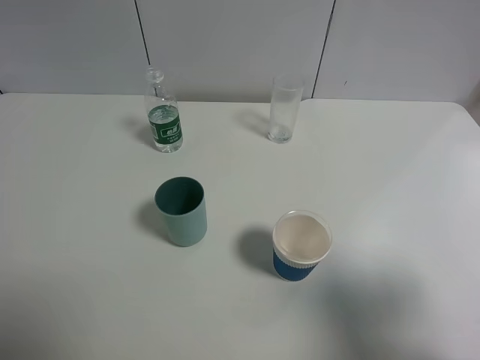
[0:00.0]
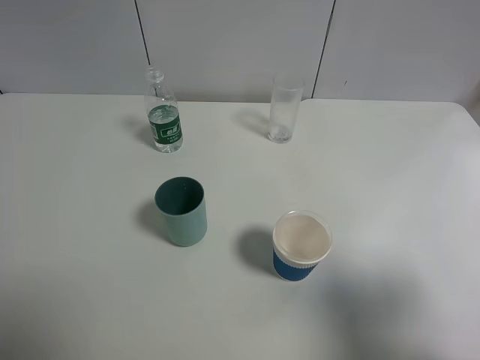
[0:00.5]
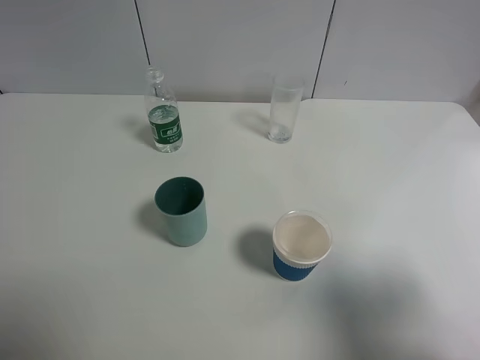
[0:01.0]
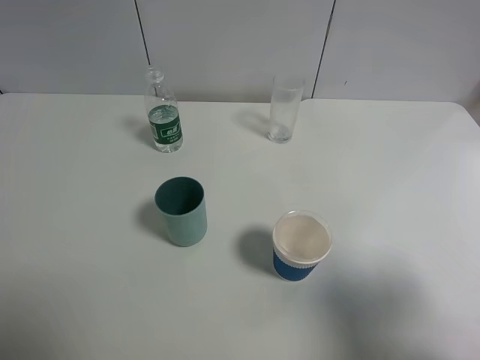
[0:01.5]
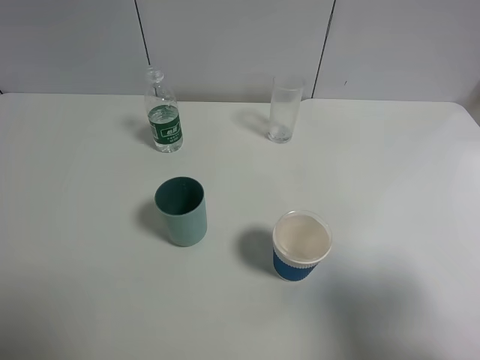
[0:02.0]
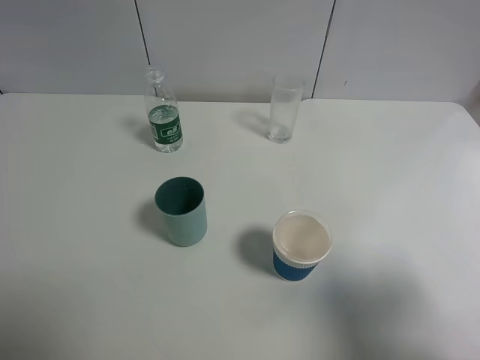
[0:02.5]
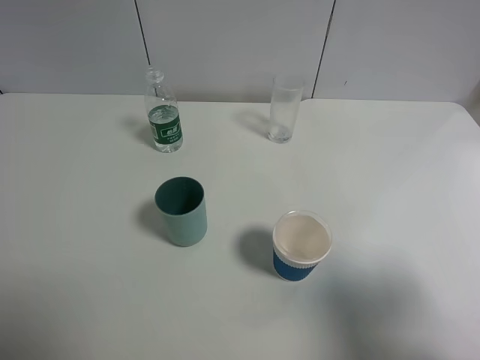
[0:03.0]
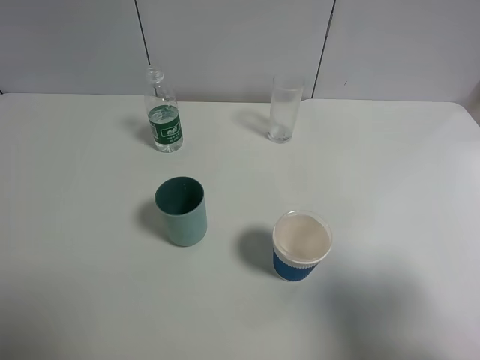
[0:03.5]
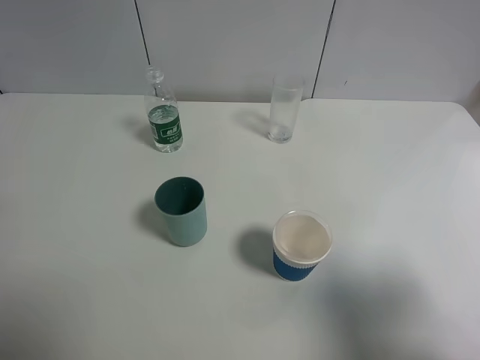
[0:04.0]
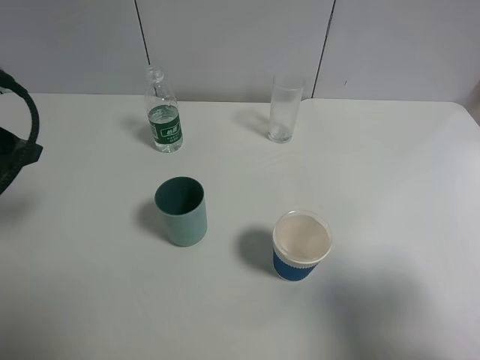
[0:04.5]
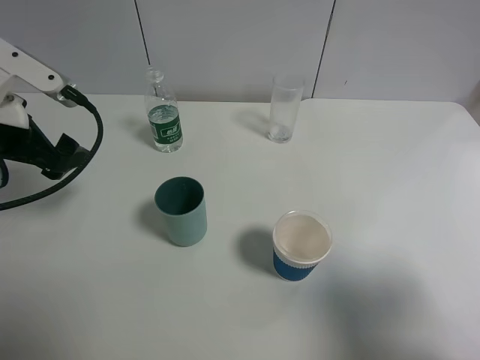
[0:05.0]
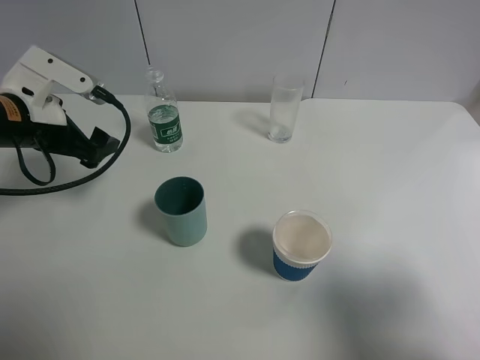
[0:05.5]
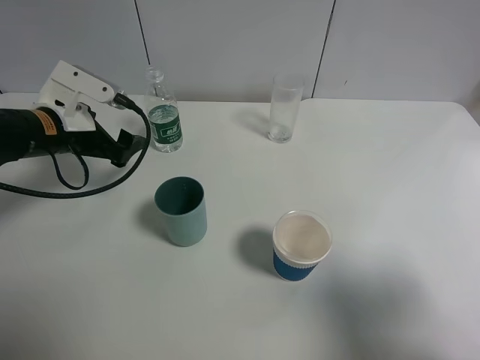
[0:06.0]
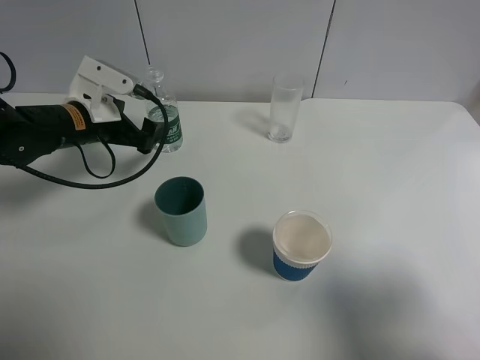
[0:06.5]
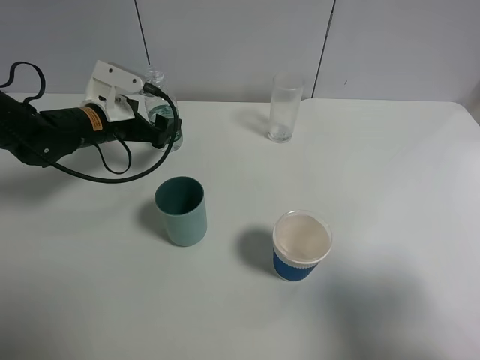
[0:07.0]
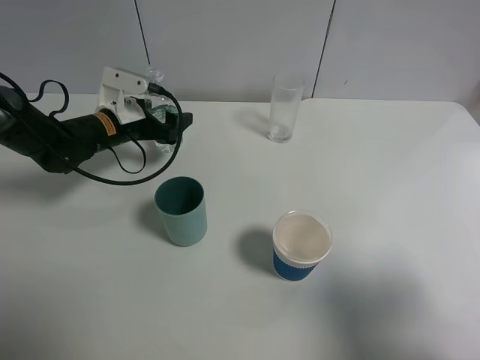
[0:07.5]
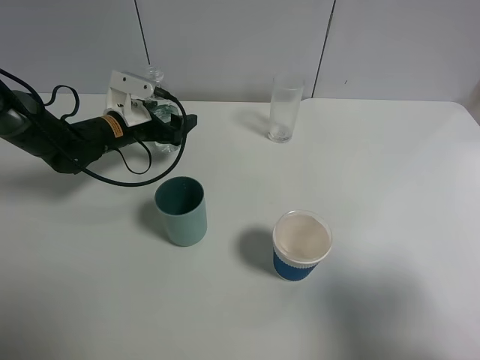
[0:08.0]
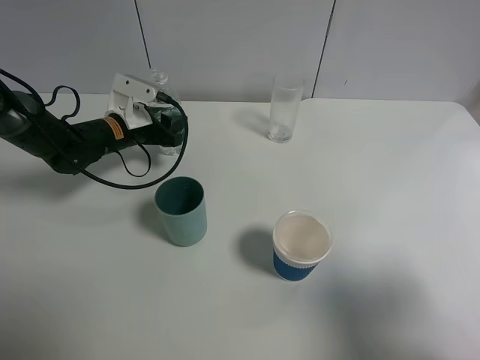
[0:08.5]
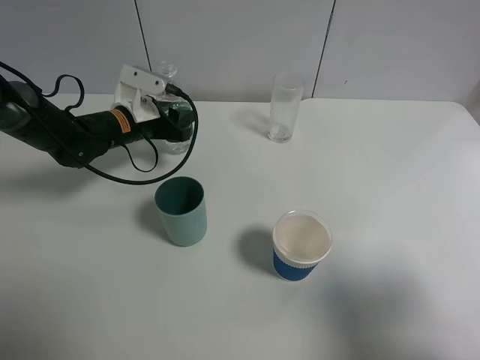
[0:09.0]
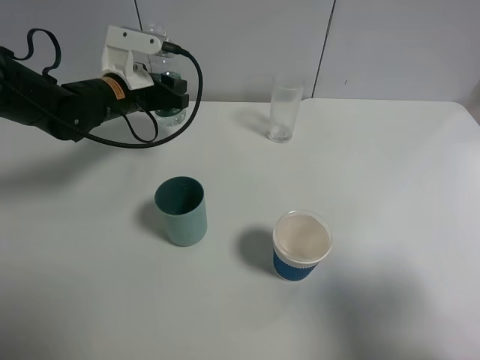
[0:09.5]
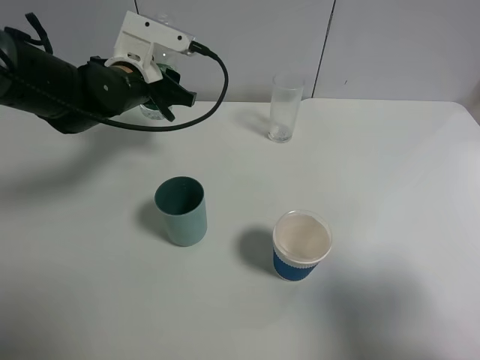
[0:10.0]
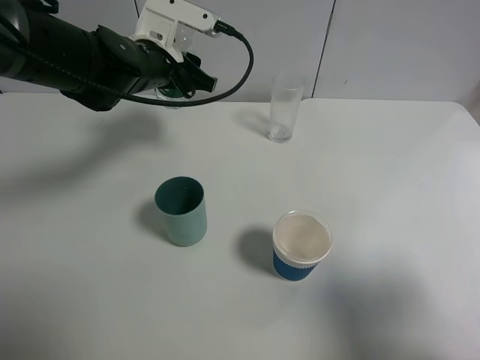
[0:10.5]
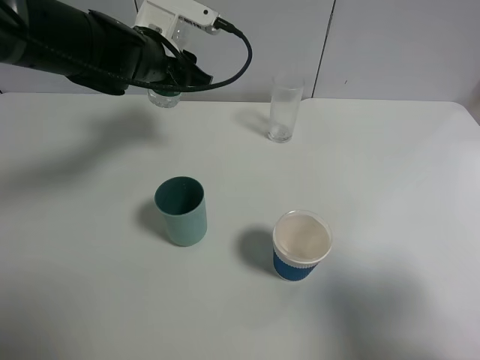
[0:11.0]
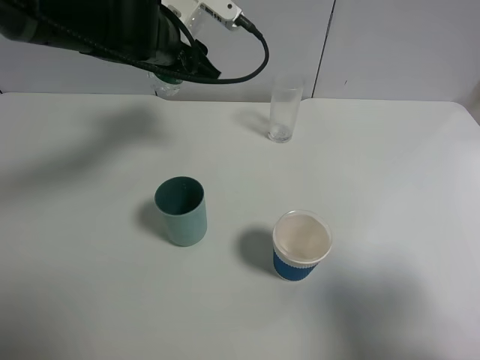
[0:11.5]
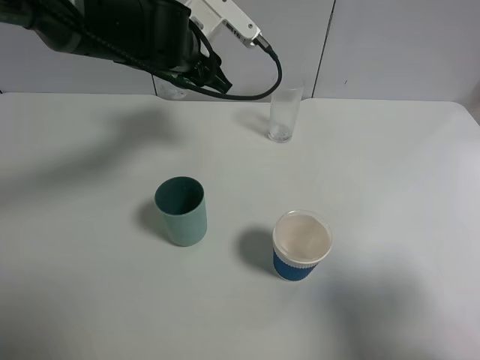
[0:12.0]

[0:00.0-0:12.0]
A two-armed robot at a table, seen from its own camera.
Task of the whole recording: use a gripper to hold the bottle of the drink and pour it into a random cup.
Step, 0.0 to 8.5 s: Grasp the mineral water bottle with the left gripper.
0.0 to 2.0 s: Both grippers stay put.
4.0 to 6.0 s: The left gripper goes about 25 cm forward, downward and to the right.
6.0 to 8.0 s: The left gripper moves forward and downward, about 10 cm.
8.0 to 10.0 s: The left gripper travels upward and to the right by roughly 10 cm, and closes its fingers.
10.0 to 12.0 s: The left gripper moves to the right, about 5 cm.

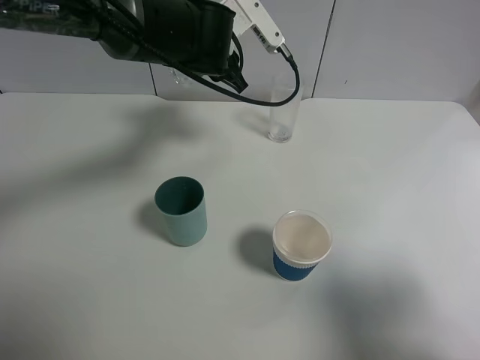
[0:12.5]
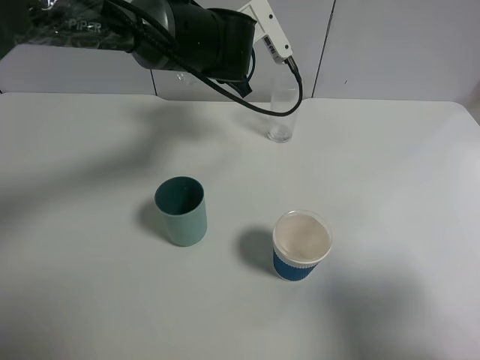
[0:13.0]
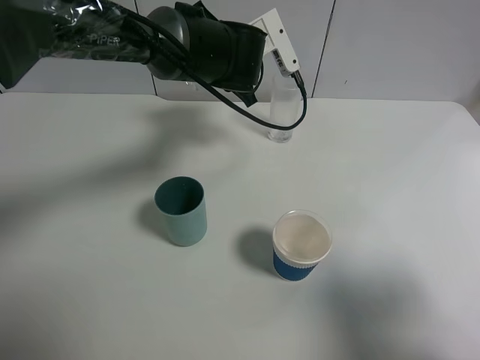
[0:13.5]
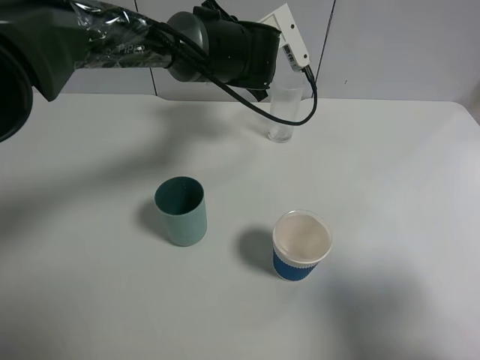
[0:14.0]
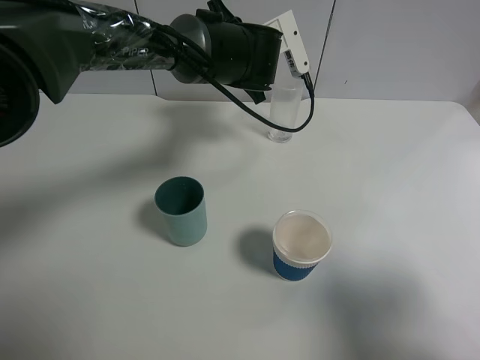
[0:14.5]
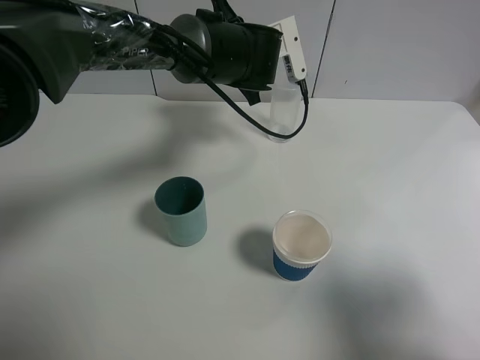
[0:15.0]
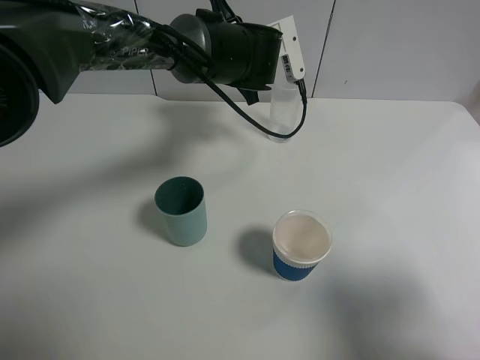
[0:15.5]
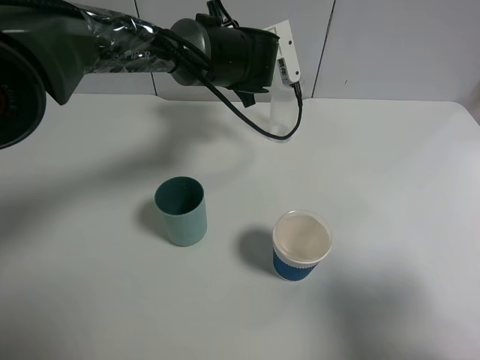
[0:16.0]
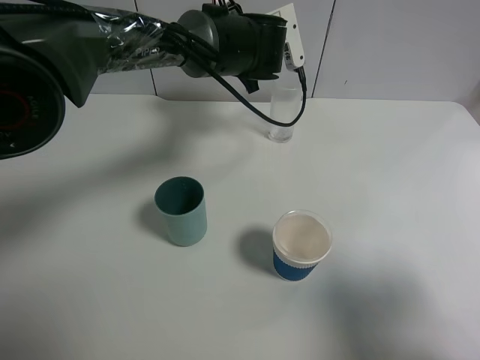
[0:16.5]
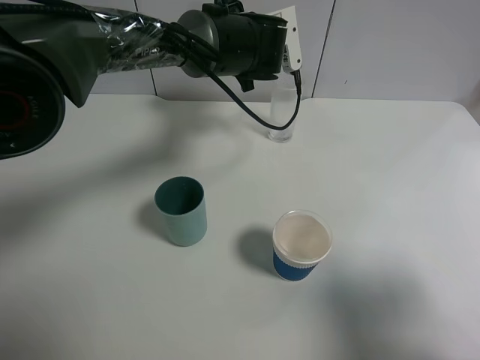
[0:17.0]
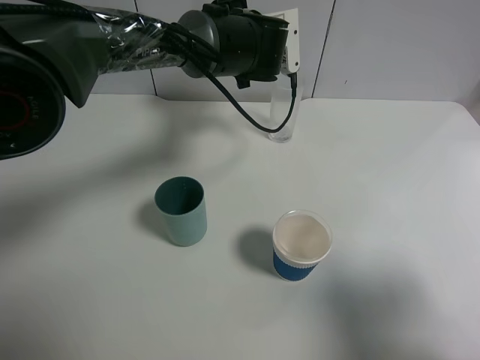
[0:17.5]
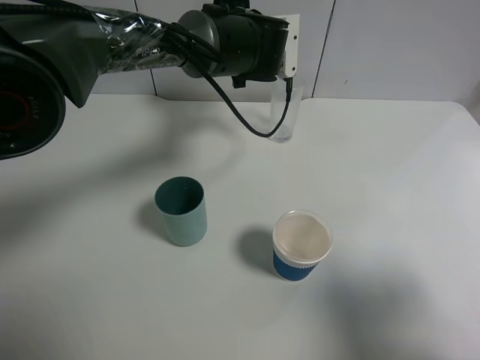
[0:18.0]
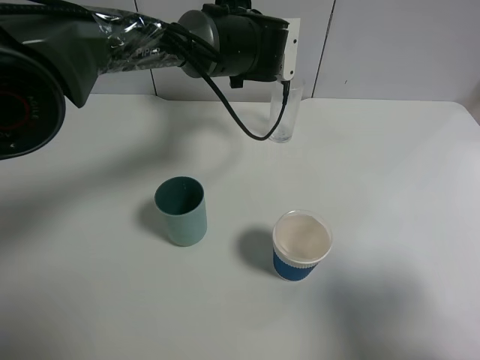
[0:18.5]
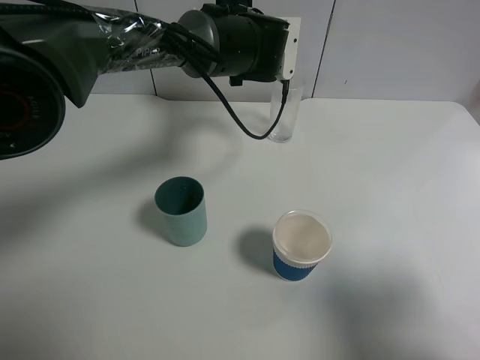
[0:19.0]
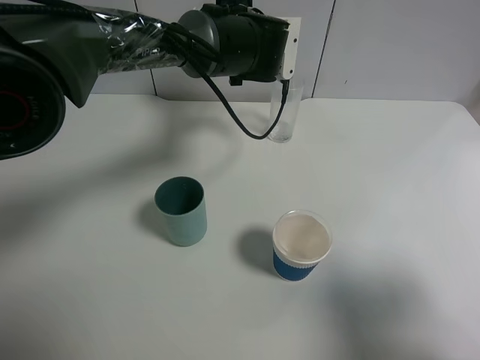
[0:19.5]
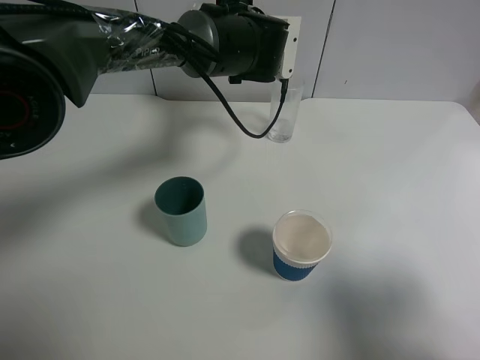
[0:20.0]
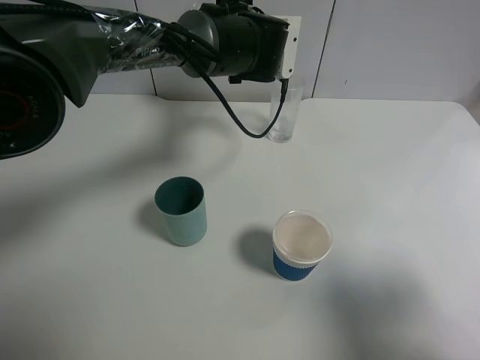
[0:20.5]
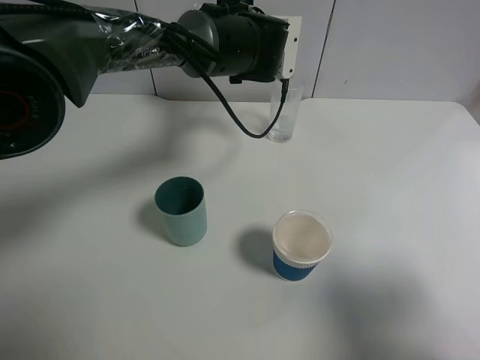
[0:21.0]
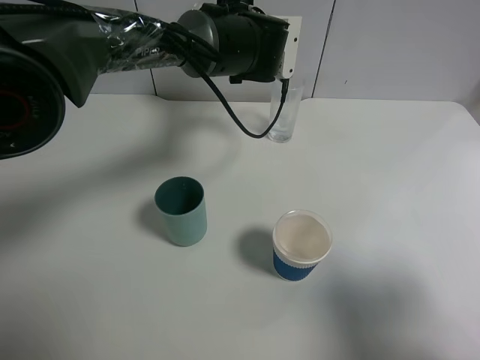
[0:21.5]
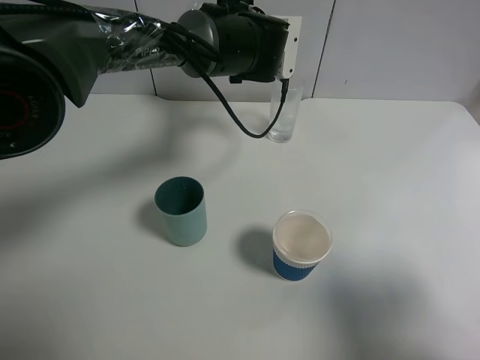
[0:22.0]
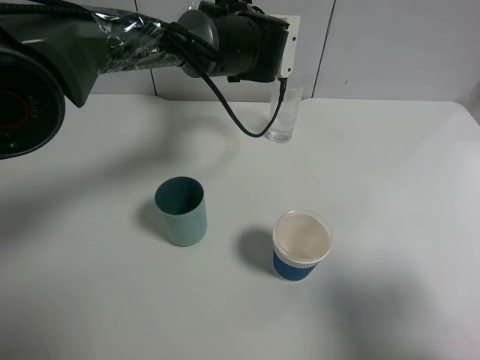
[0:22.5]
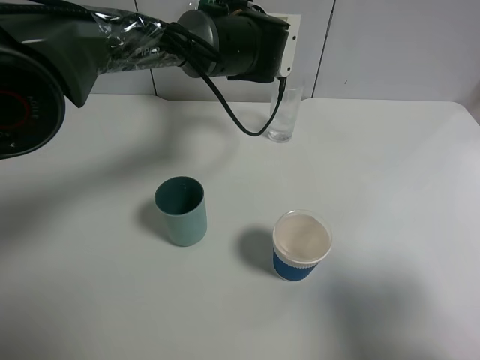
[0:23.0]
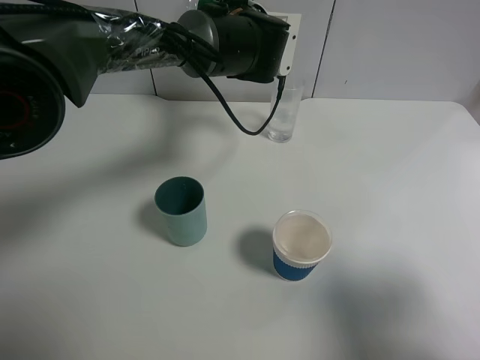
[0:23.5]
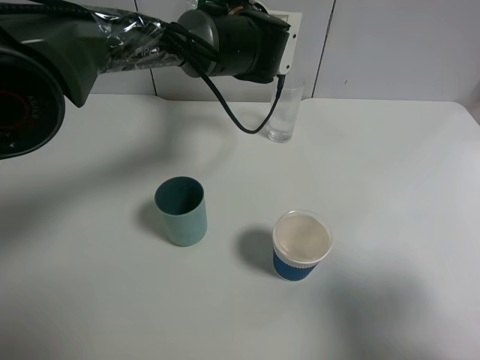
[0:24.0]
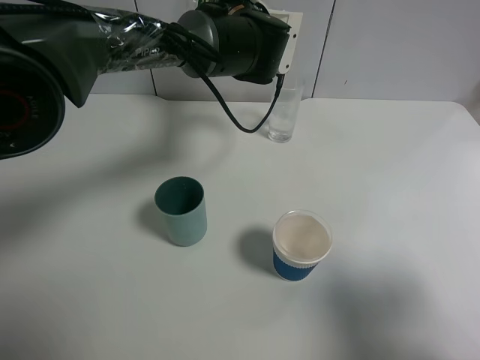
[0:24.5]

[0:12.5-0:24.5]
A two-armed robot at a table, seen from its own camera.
Task of the whole recording: use a gripper to hold the bottle of the drink and pour it into a random cup.
12.5 to 14.5 s: The left gripper ends up approximately 5 cm from where it was.
14.5 to 16.5 s: The grippers stay close to where they were, moving slightly.
16.5 to 18.5 s: The grippers move only a little.
18.5 to 22.5 s: Both grippers stay about where they are.
22.5 to 24.5 s: The grippers make only small movements.

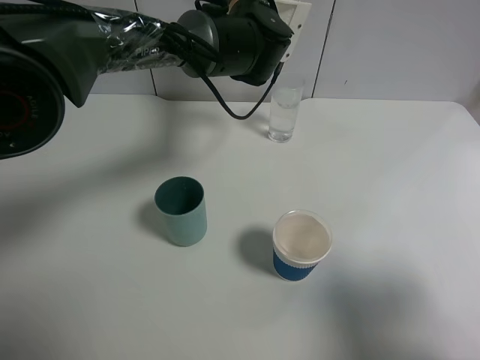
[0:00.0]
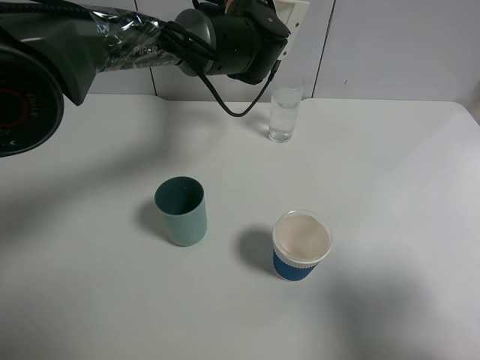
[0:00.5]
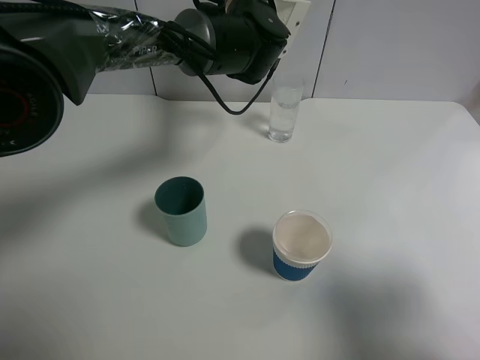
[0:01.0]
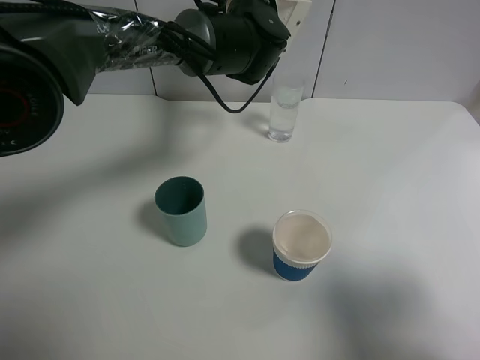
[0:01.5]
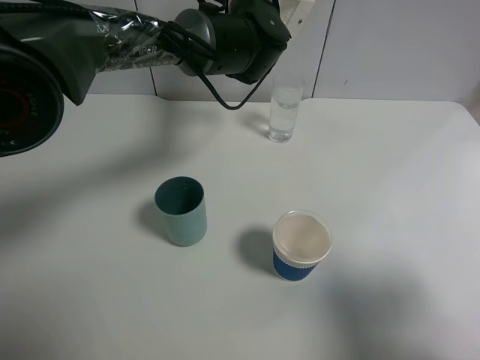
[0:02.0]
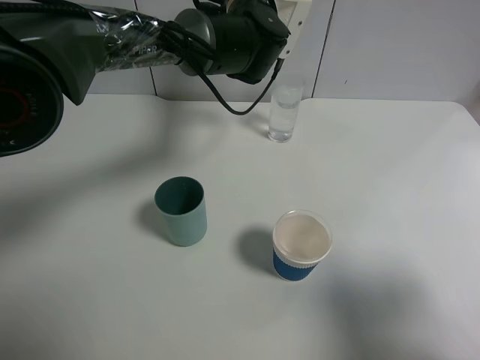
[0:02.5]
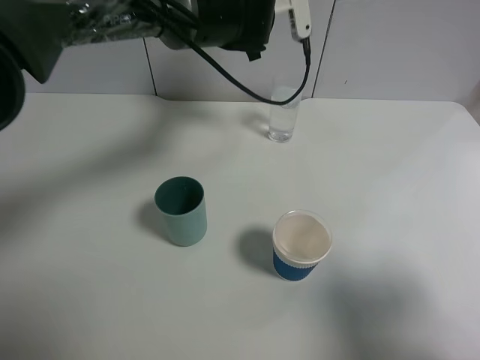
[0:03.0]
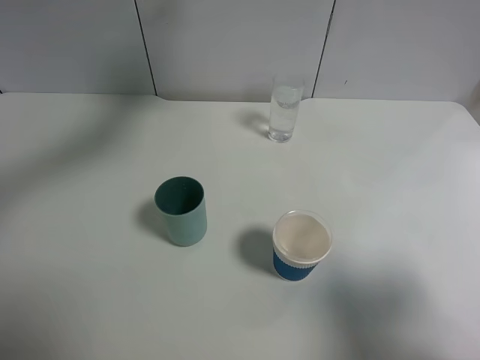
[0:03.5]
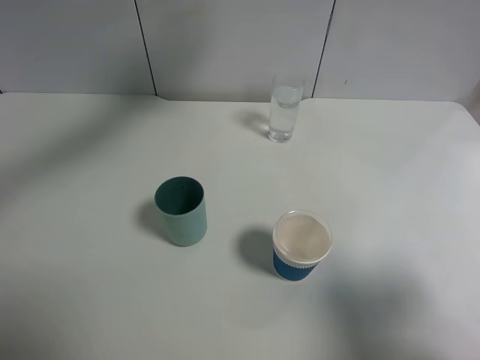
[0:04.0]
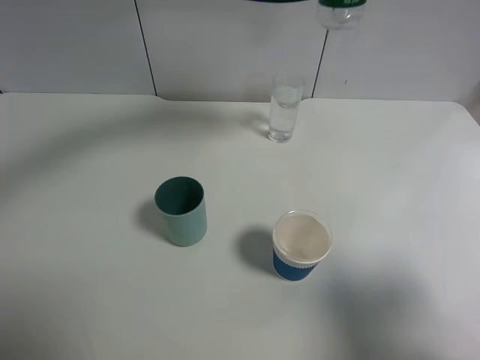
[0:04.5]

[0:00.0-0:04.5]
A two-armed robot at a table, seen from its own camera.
Task of the whole recording: use a gripper to hold the bottle of the drink and pour it into a random cup.
Step, 0.0 to 3.0 s: Pour the mineral water into the glass with the left gripper.
0.0 to 2.0 s: The grippers stay close to where they were, moving slightly.
2.0 to 4.5 s: The left gripper travels upward and backward by about 10 cm.
